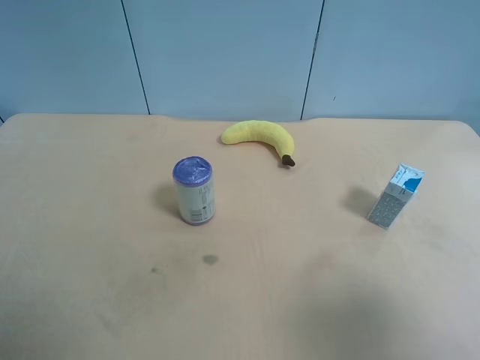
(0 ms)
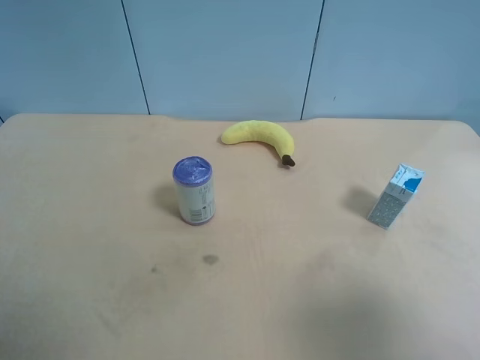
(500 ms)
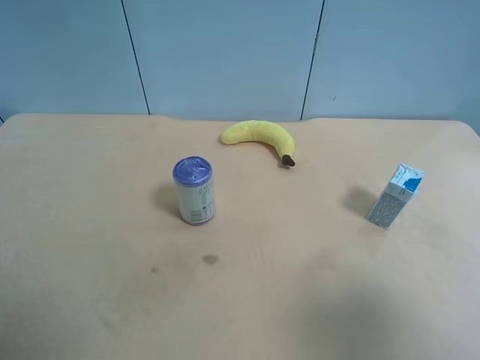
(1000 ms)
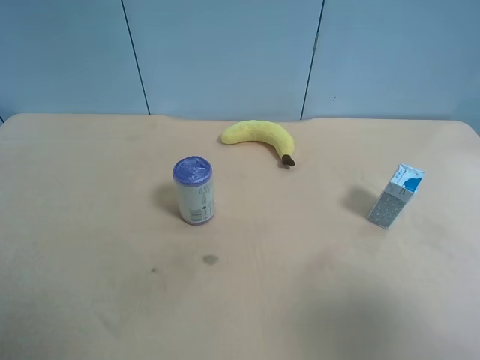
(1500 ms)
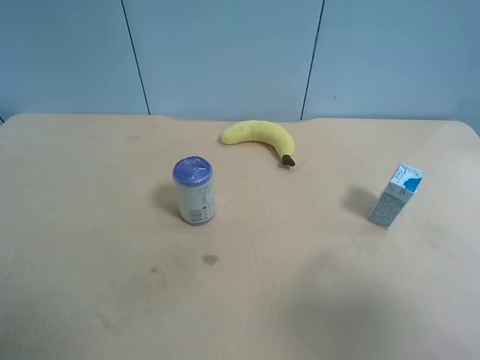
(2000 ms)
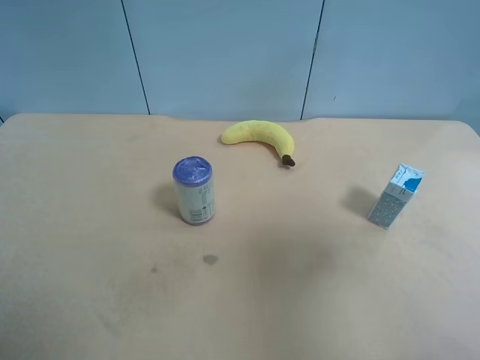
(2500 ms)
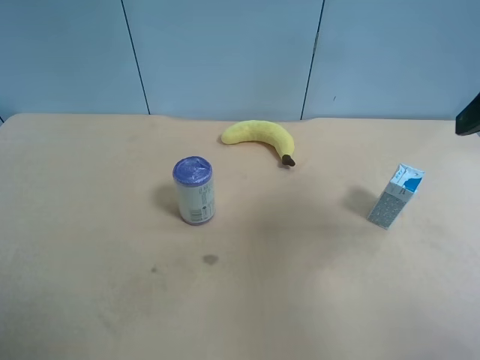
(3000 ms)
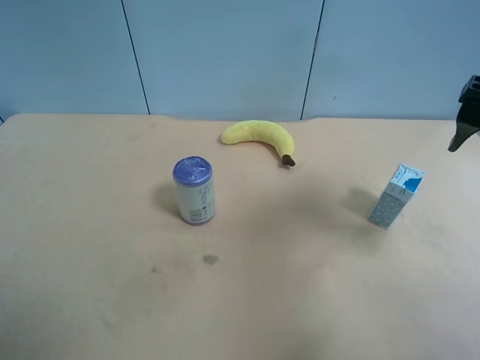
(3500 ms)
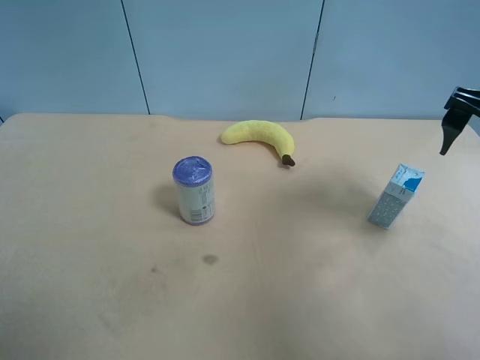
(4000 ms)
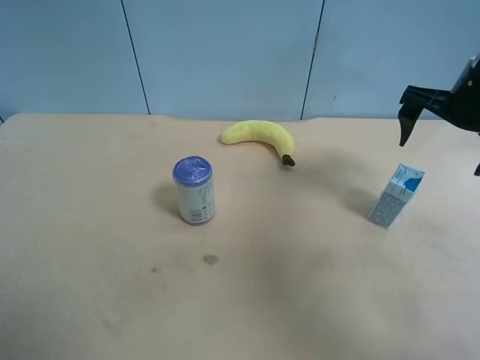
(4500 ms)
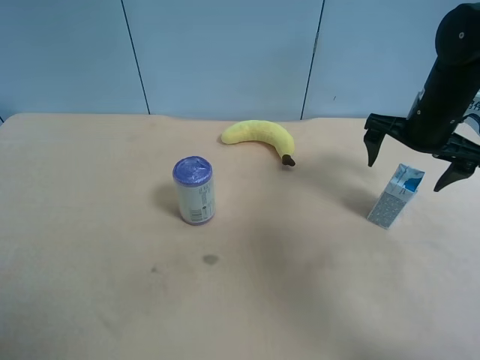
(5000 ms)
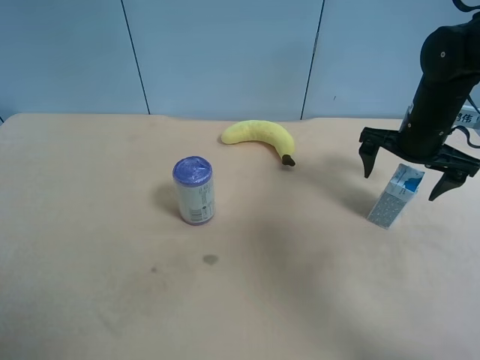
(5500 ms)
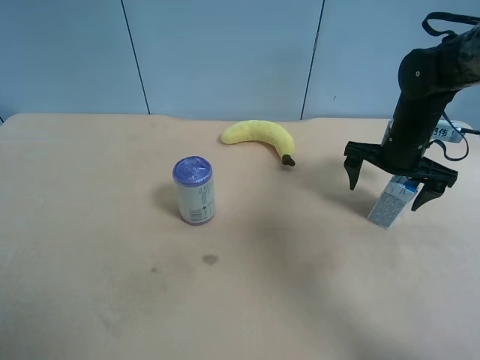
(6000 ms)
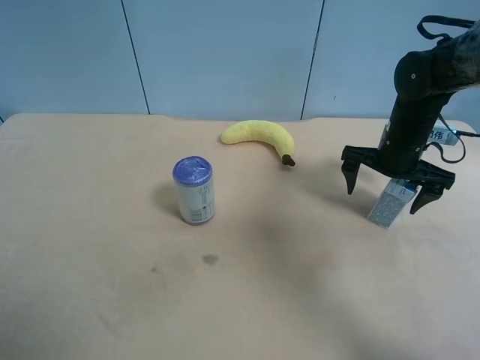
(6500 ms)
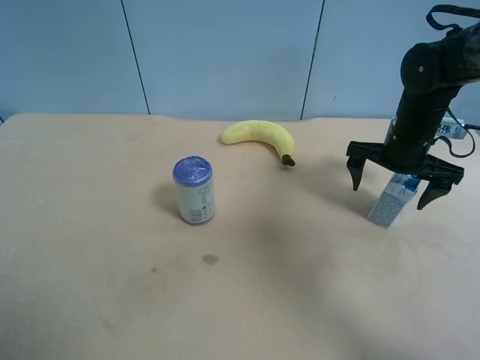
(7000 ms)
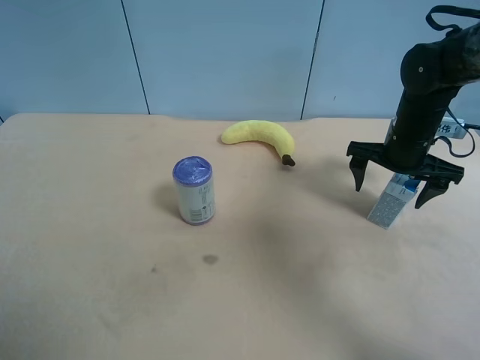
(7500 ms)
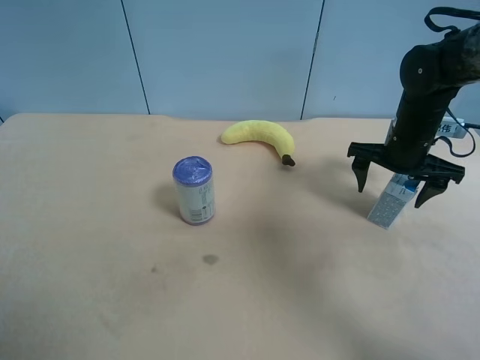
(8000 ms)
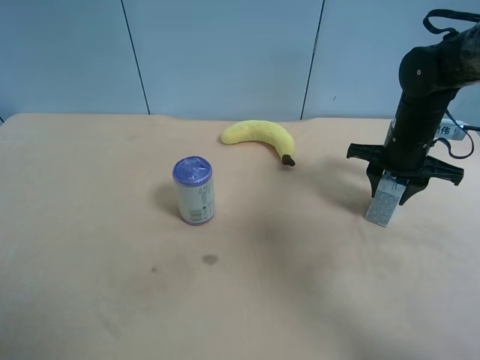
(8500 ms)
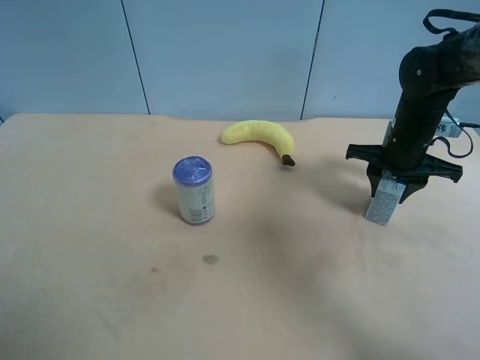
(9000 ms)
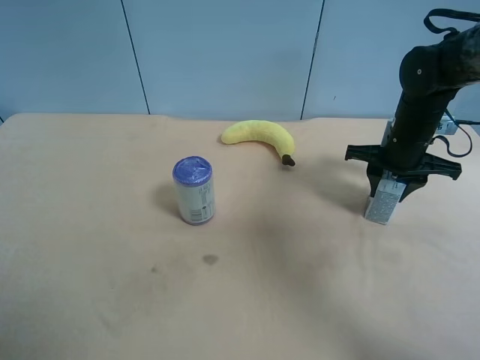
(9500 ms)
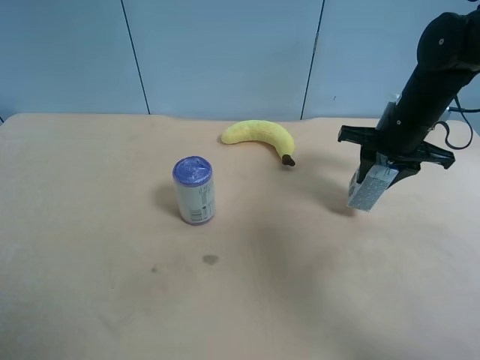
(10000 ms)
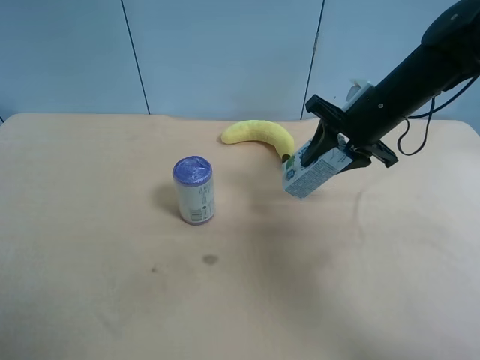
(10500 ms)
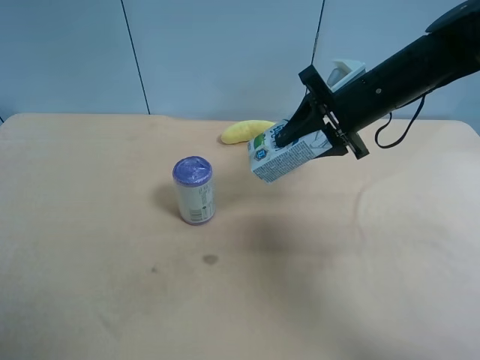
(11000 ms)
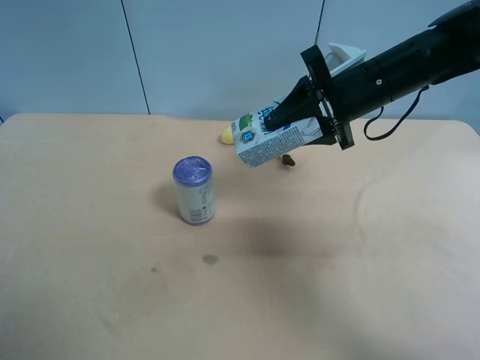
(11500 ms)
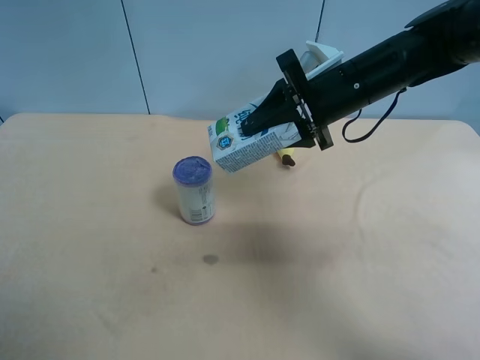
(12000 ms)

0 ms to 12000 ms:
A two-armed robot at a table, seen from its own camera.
Task of the whole recording: use the right gripper to pick up the item and transfer it from the right gripper to the left gripper.
2000 ms to 4000 ms: The right gripper travels forward by approximately 25 cm.
4000 ms to 6000 ms: The right gripper is displaced downward and forward by approximately 15 cm.
6000 ms to 8000 ms: Both grippers stay put.
8000 ms to 10000 ms: The right gripper closes up.
10000 ms to 12000 ms: The right gripper shifts about 10 cm to the left and upward.

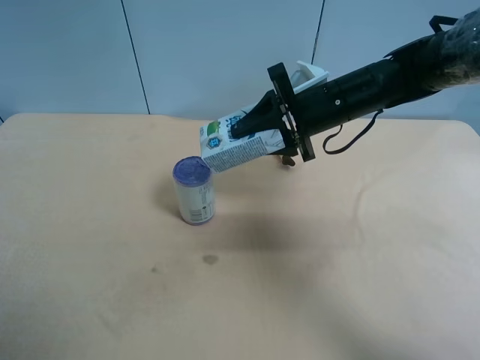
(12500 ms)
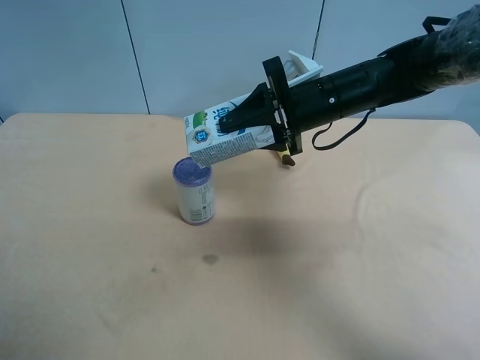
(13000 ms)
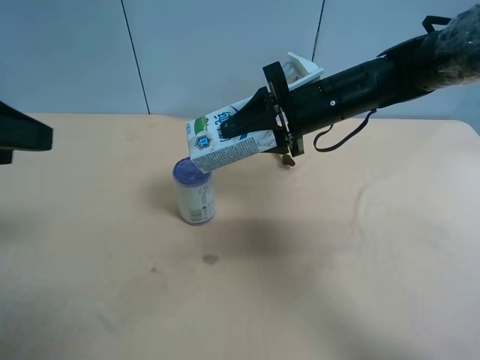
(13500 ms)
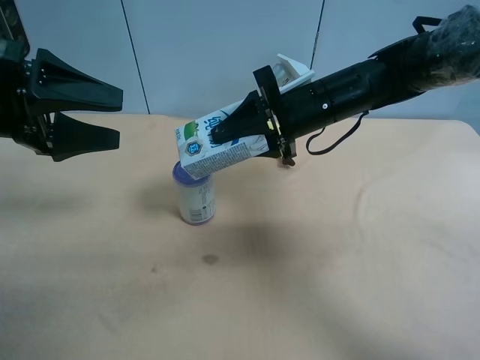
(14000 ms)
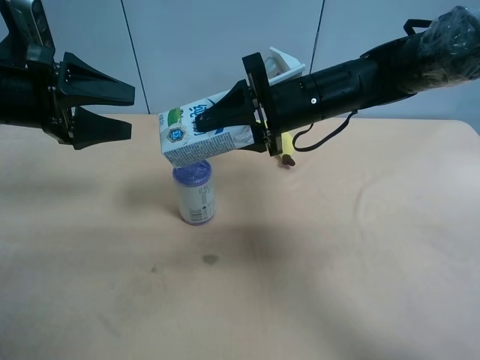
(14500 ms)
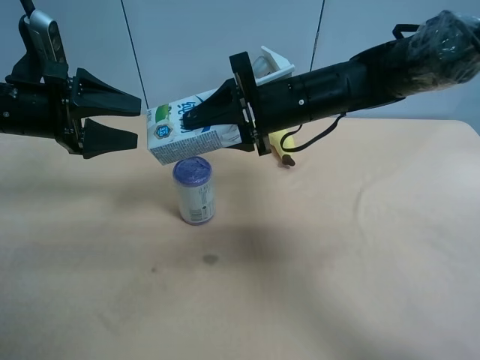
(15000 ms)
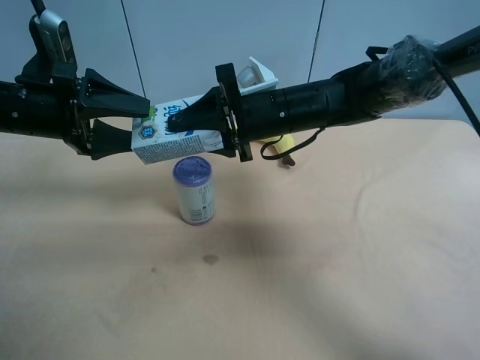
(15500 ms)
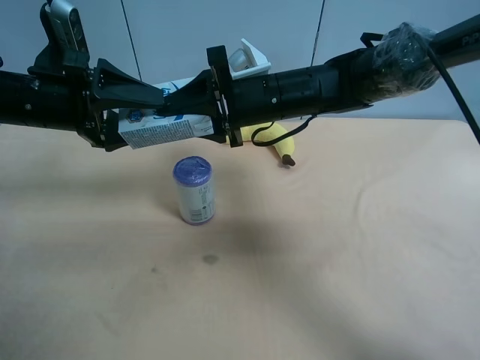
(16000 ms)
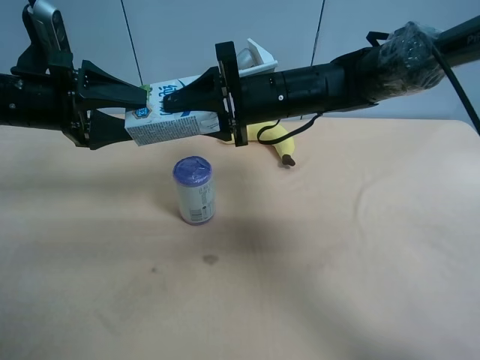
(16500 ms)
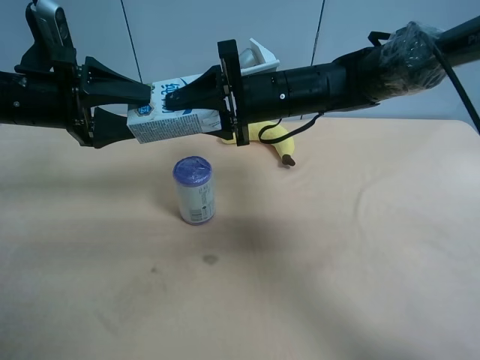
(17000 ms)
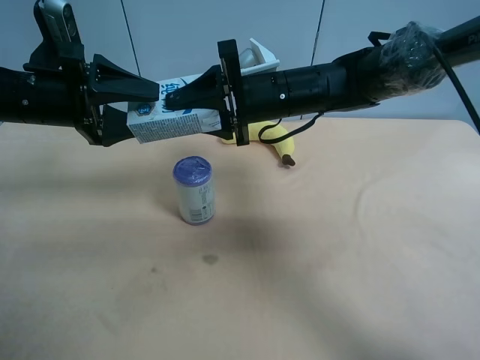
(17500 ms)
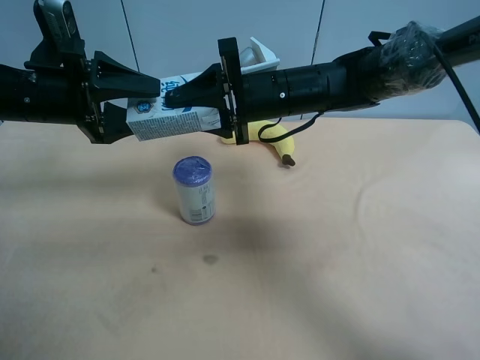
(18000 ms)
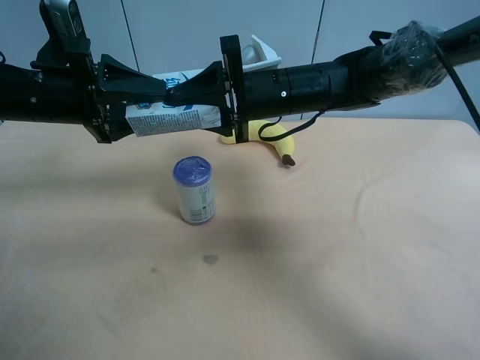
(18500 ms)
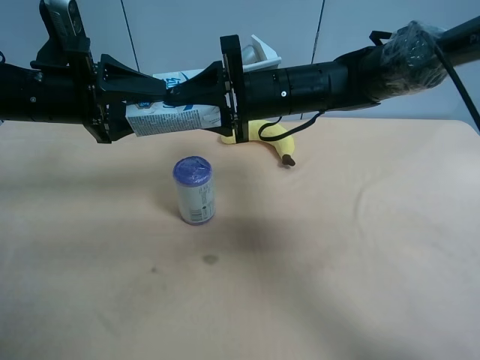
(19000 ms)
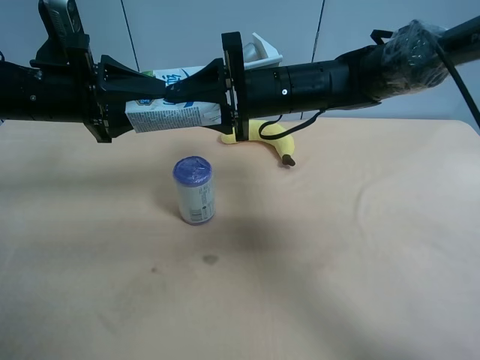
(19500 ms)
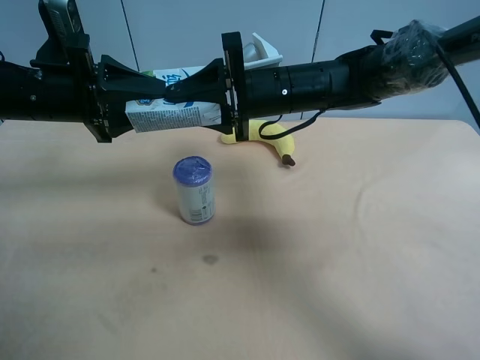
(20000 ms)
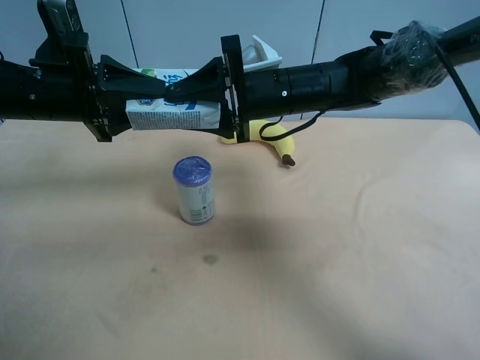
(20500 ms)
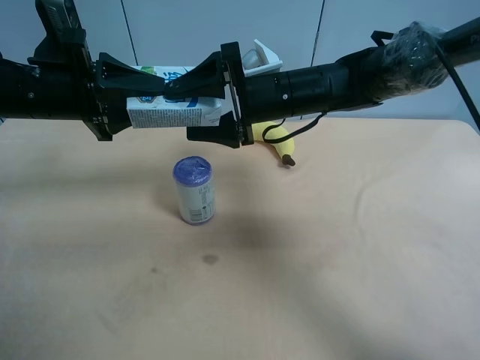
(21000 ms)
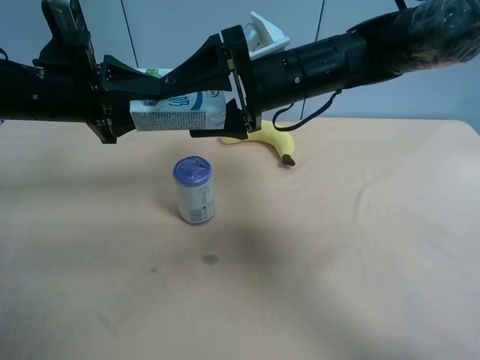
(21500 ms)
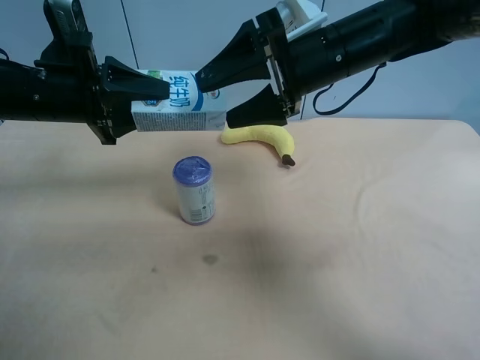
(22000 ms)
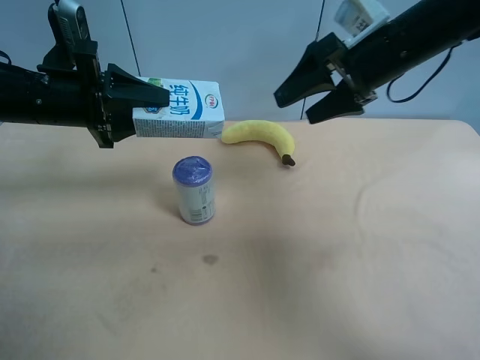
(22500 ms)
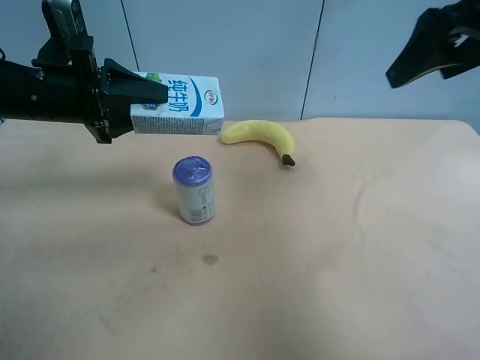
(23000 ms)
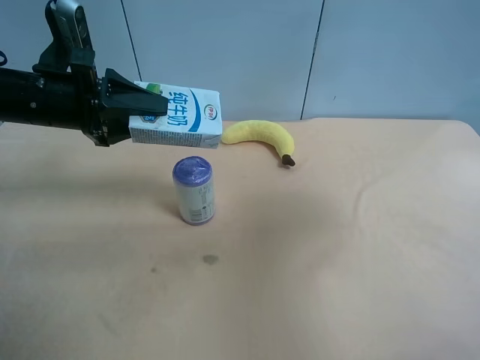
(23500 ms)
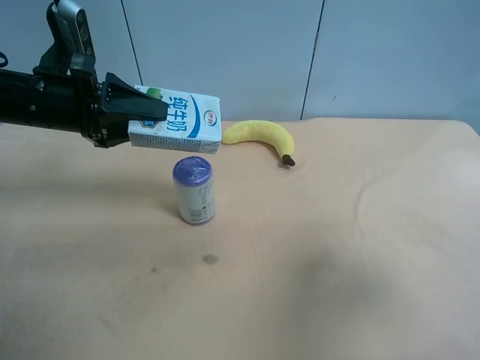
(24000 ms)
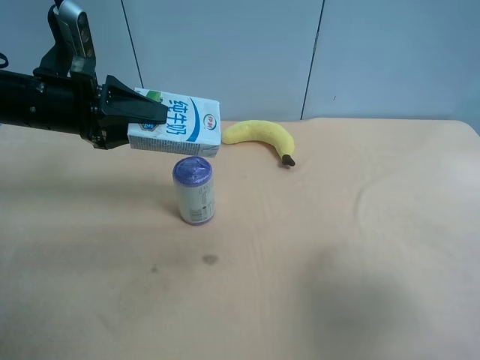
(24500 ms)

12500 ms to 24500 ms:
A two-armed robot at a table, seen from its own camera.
Task of the whole recording: use the right gripper to pick up the item and transfer it from the right gripper to the left gripper.
12500 ms to 14500 ms: The left gripper goes some 25 cm forward.
14500 ms to 16500 ms: The grippers stay close to where they were, moving slightly.
16500 ms to 18500 ms: The left gripper closes up.
18500 ms to 20500 ms: The left gripper closes.
20500 ms to 22500 ms: The right gripper is displaced to the right and upward by roughly 15 cm, and opens.
22500 ms to 24500 ms: The right gripper shifts roughly 30 cm backward.

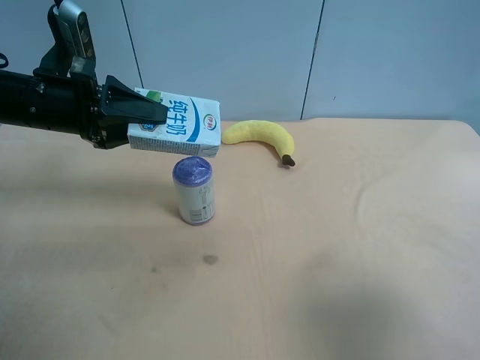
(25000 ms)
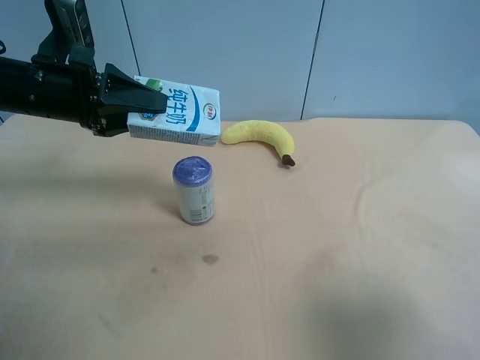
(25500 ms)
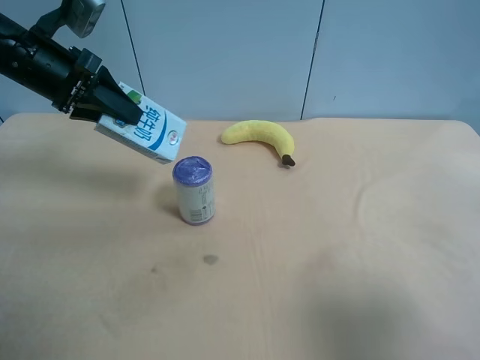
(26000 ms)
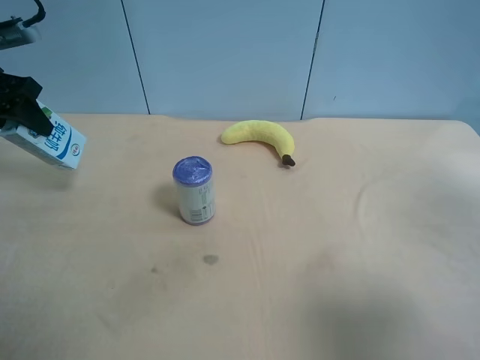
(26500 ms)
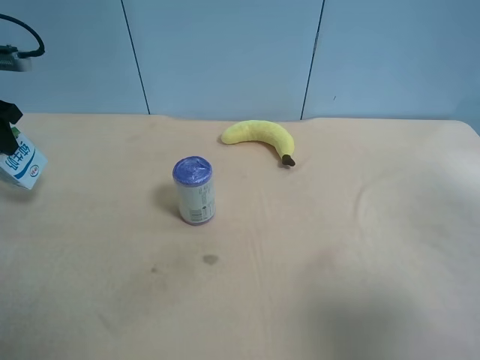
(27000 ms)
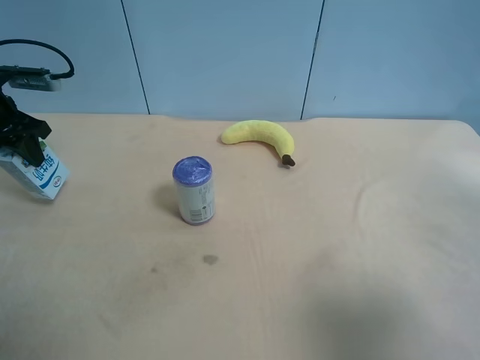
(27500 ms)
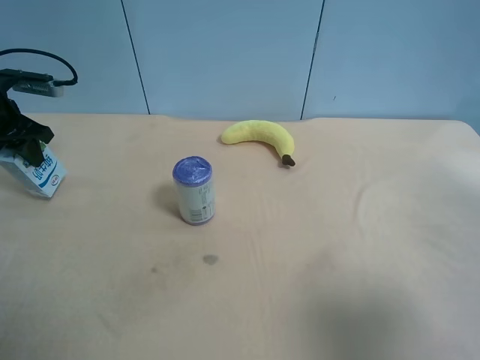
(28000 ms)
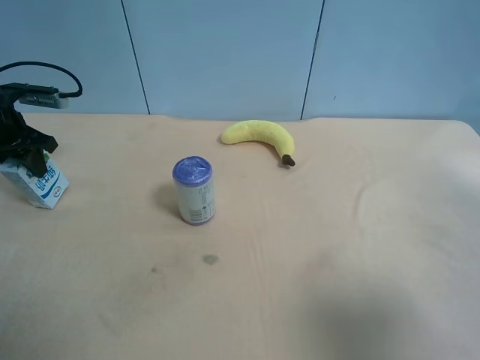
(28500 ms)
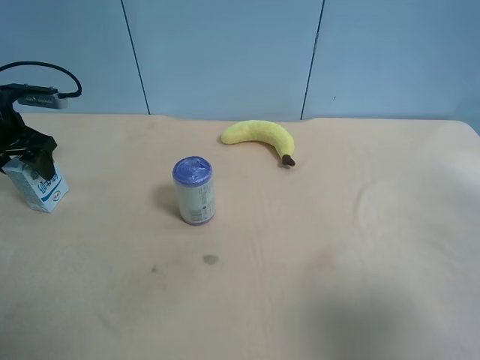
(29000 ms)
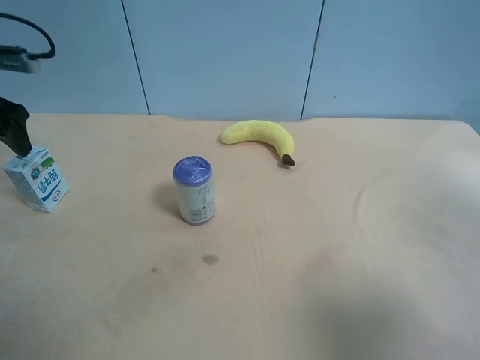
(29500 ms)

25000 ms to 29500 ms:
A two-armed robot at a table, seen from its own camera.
Task of the whole recording: use the right gripper to pick up the item and transfer it from the right gripper to the left gripper.
25000 ms to 27000 ms: The left gripper is displaced to the left by approximately 15 cm.
27000 ms to 29500 ms: The left gripper travels downward and back again, roughly 5 cm each way, and opens its fingers.
